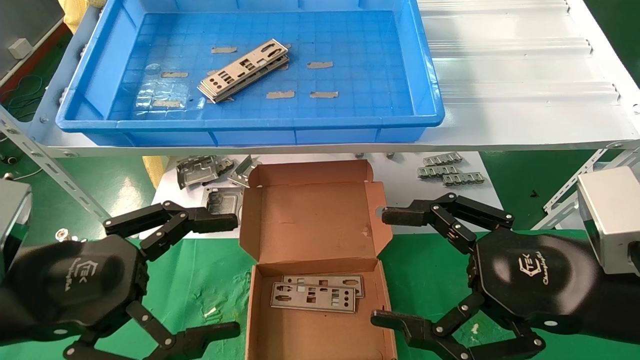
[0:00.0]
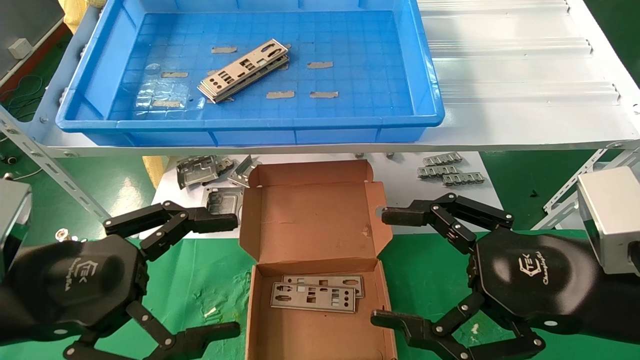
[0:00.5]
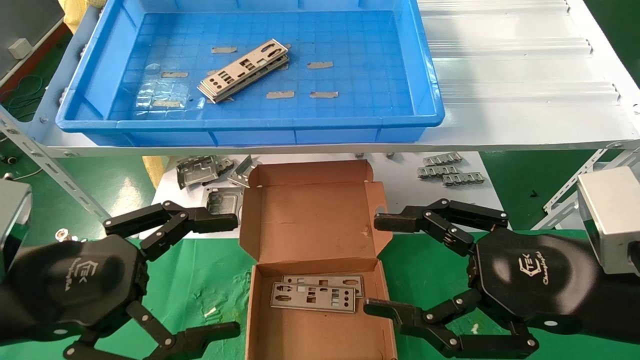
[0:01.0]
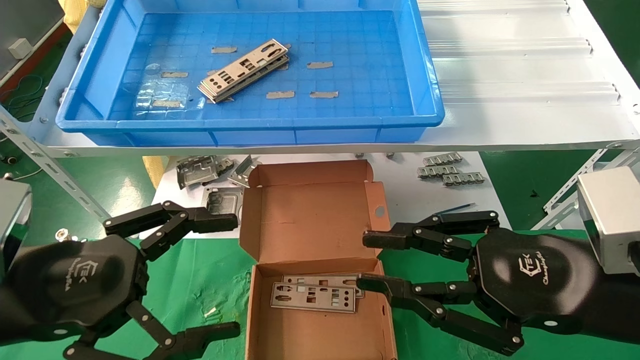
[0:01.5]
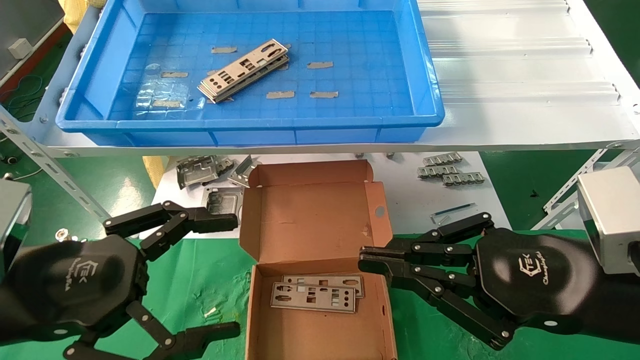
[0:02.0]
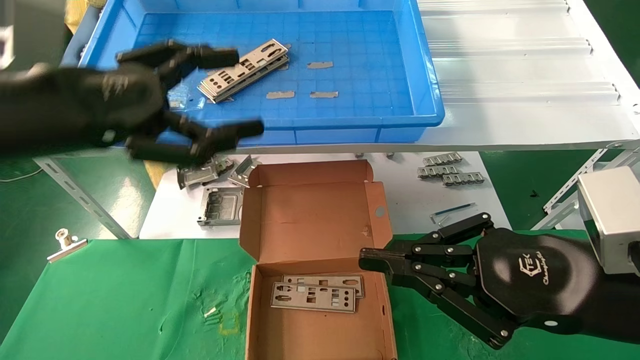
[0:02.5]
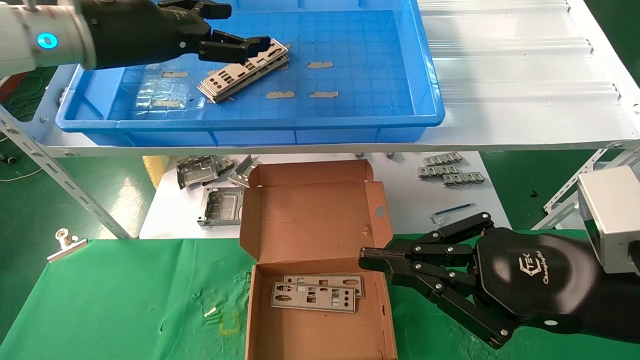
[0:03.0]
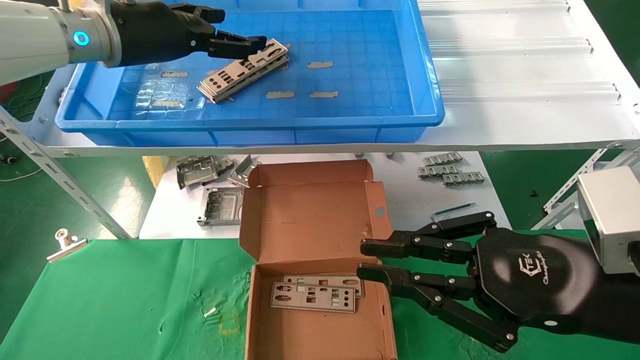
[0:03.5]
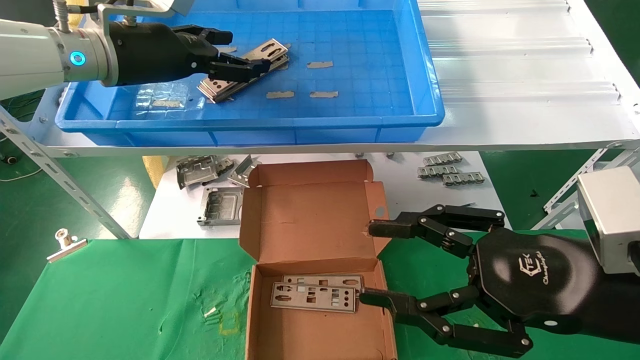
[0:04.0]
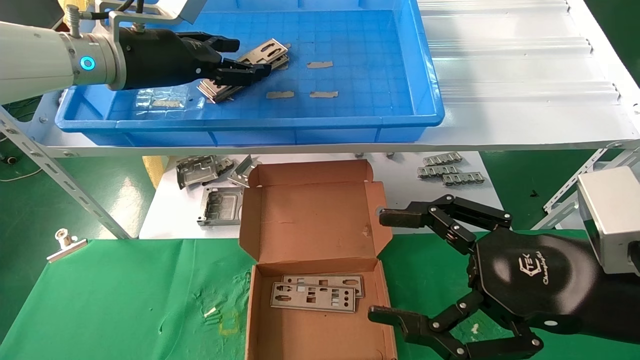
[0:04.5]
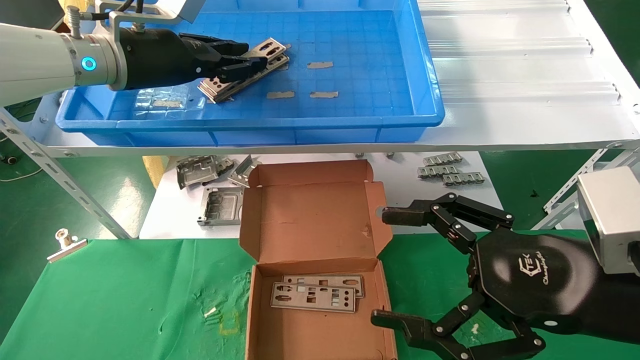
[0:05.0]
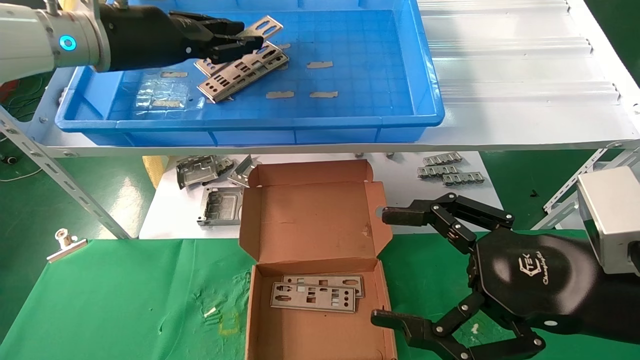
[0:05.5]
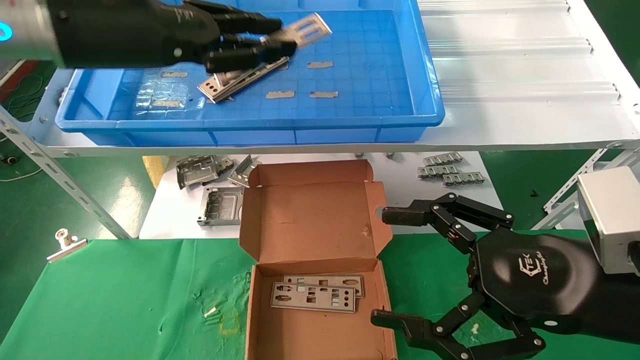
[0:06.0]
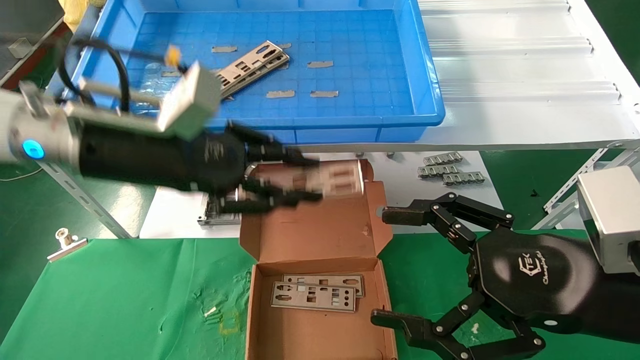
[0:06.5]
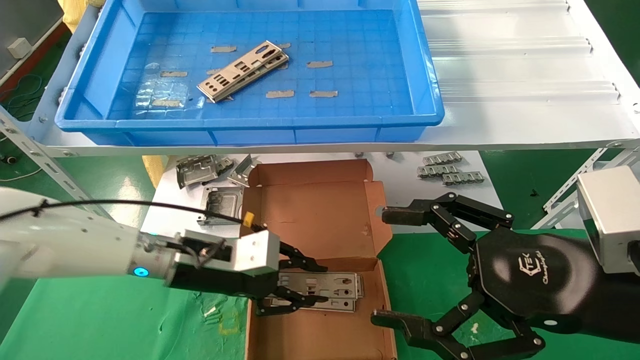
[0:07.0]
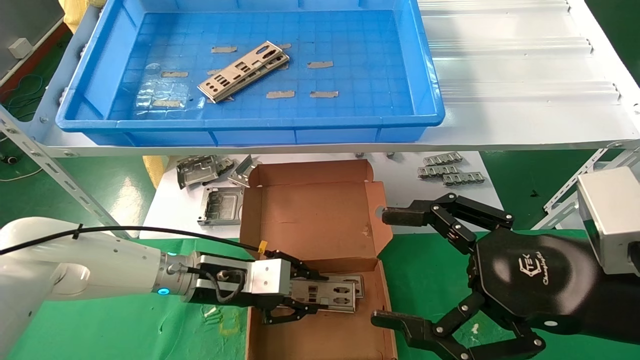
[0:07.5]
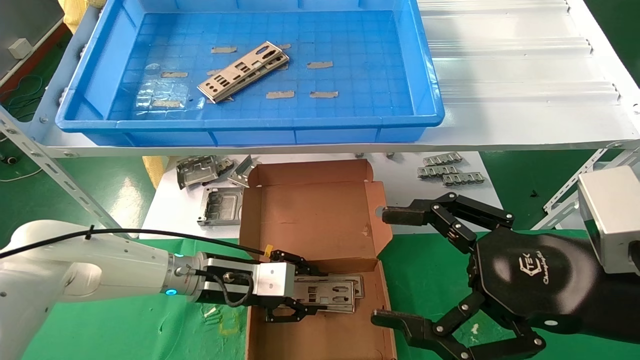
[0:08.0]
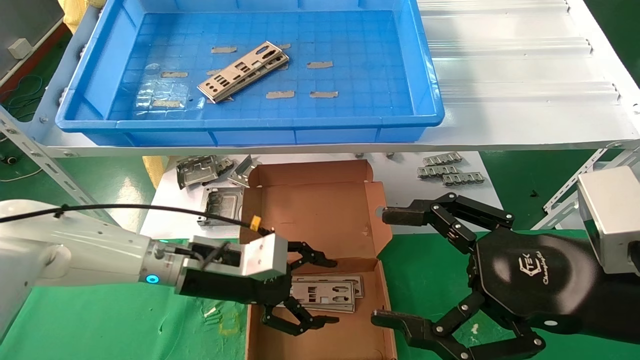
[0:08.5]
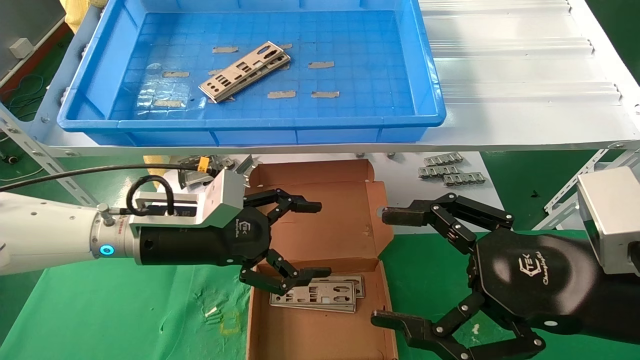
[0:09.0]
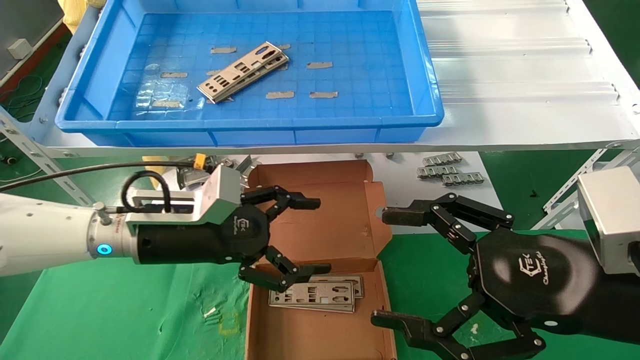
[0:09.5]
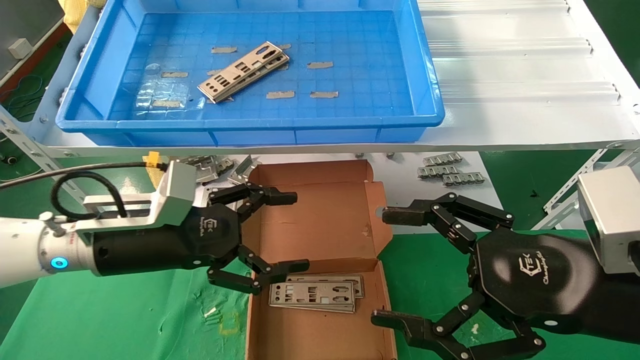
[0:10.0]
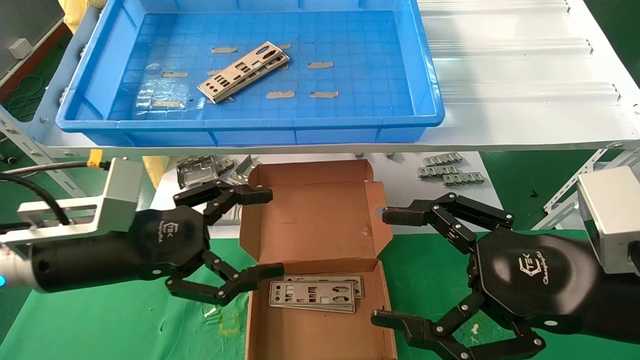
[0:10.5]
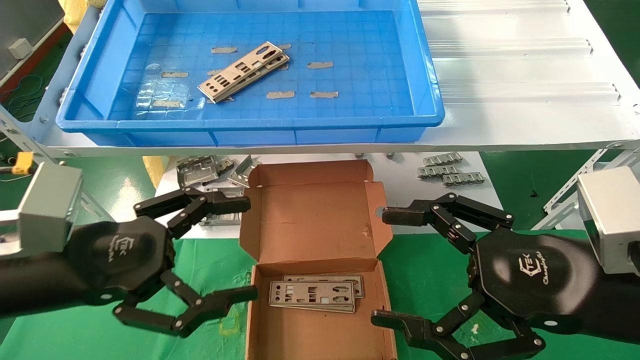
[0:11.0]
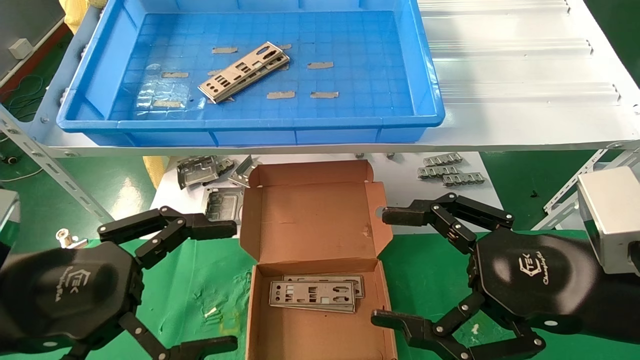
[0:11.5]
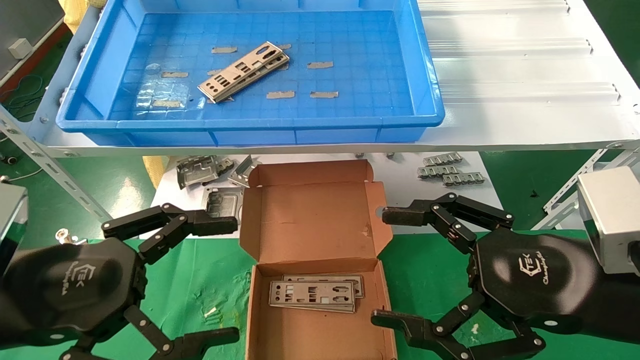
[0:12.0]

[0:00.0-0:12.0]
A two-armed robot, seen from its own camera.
Task of the whole recording: pick up the parts on the tray and put them in the cardboard box.
Step, 0:02.5 to 0:05.0: Pick up the IO bracket from the container box.
Step, 0:05.5 to 0:08.0: Place the IO bracket into the ingredient slot.
0:00.0 to 0:02.0: The right gripper closes up.
0:02.0 to 0:04.0: The left gripper goes some 30 cm forward and upward.
0:04.0 to 0:06.0: The right gripper opens up, while the left gripper moves backward, roughly 5 cm, and closes up.
0:06.0 to 0:08.0: The left gripper heads downward, covering some 30 cm.
0:08.0 to 0:10.0: The left gripper heads upward, backward and to the left, covering roughly 15 cm, and opens.
0:10.0 to 0:12.0: The left gripper shifts some 15 cm backward.

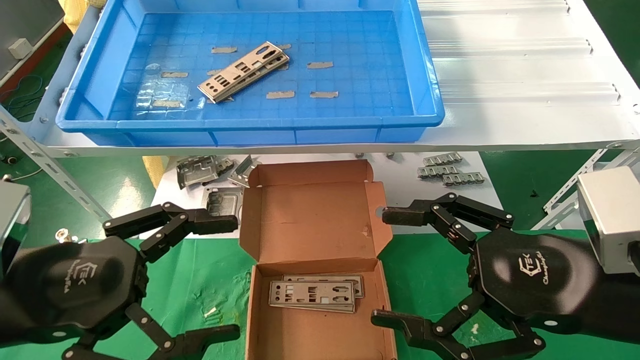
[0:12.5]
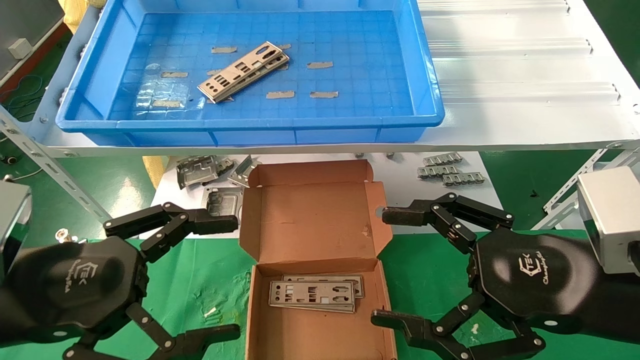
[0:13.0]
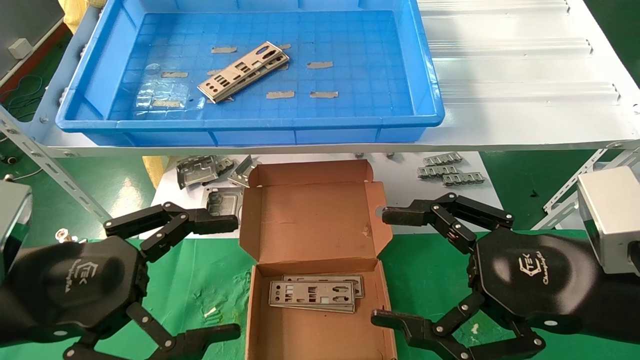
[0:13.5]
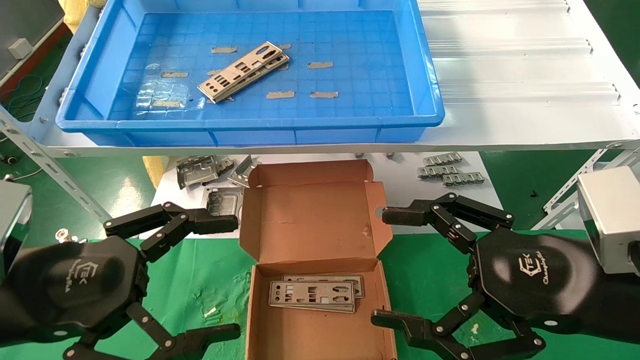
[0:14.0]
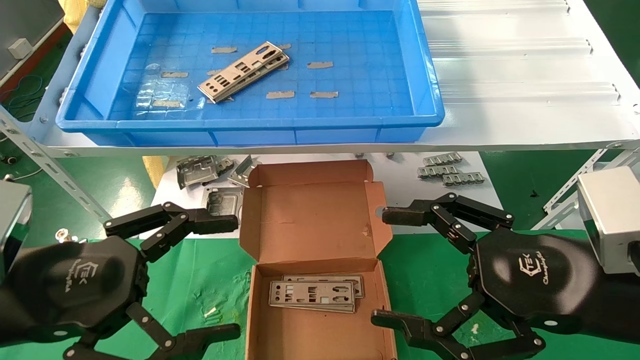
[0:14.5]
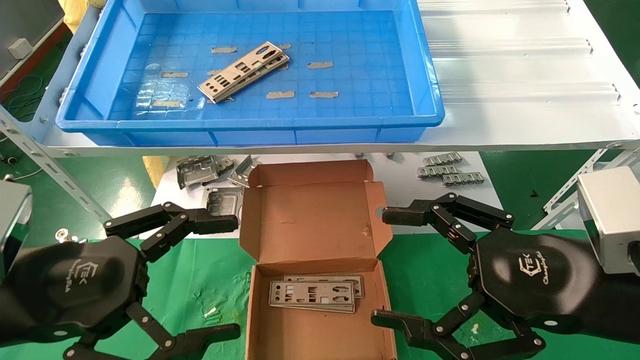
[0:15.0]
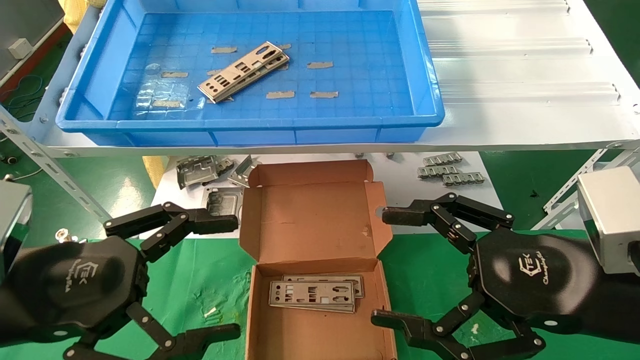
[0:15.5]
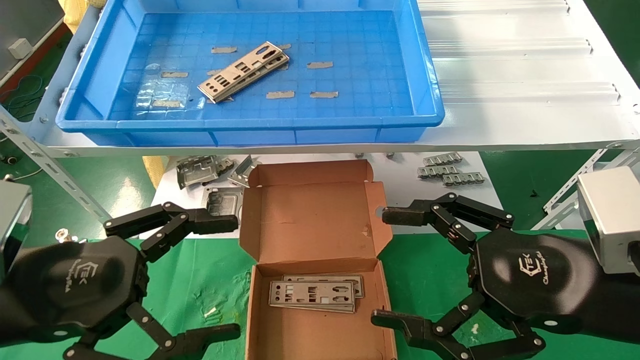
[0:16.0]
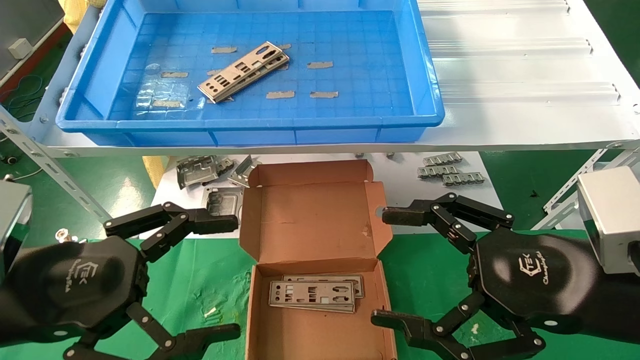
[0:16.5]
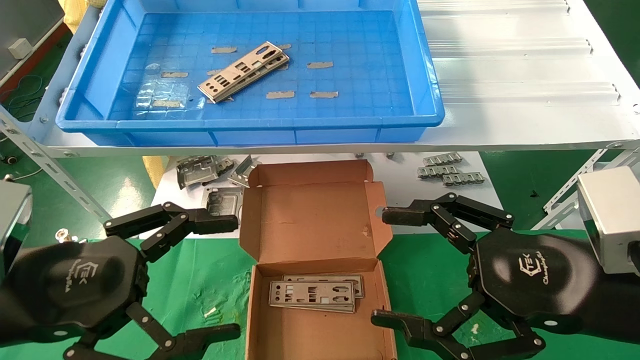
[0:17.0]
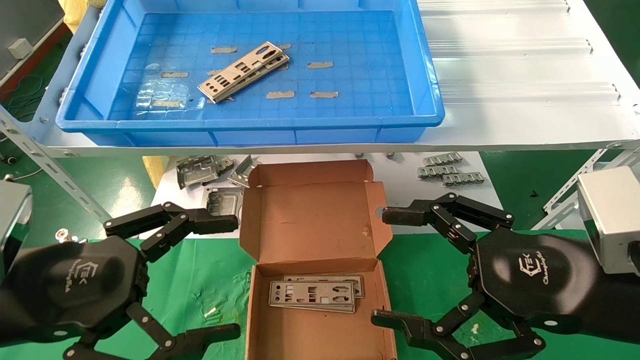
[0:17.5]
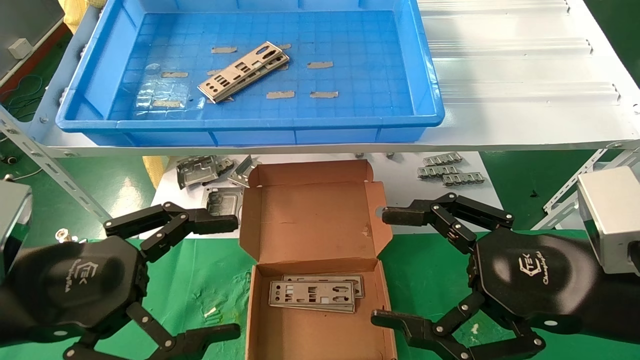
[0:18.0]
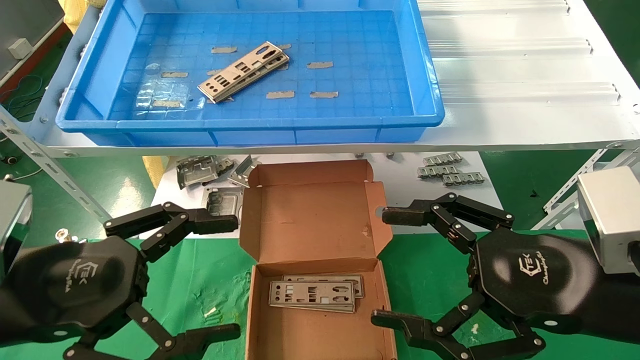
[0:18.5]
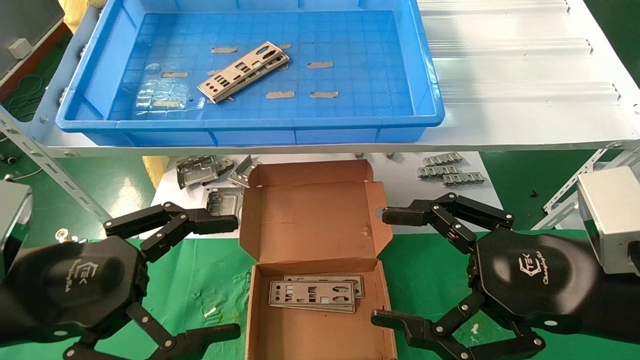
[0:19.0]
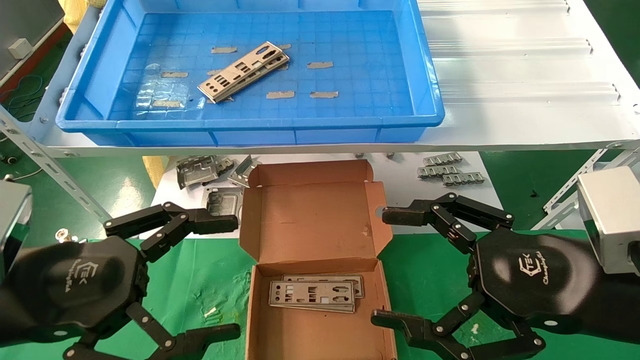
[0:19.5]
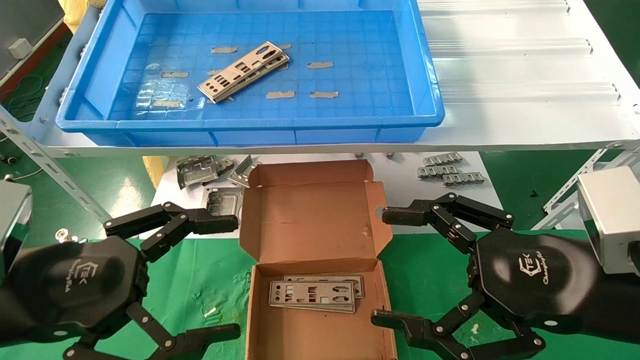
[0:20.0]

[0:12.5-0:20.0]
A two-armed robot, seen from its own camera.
Task of the whole recording: pick up the parts on the tray and put them in the cardboard box.
0:12.5 to 0:20.0: Both grippers stay put.
